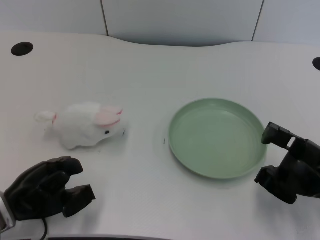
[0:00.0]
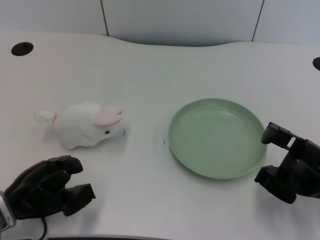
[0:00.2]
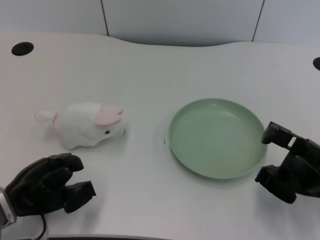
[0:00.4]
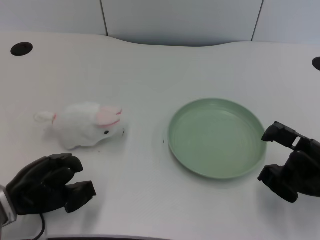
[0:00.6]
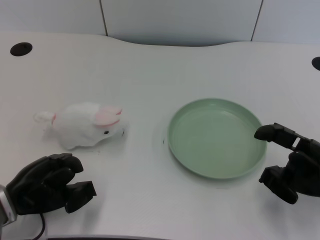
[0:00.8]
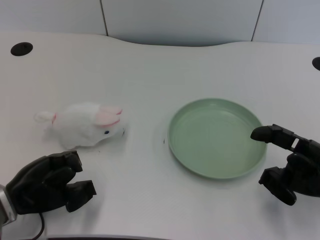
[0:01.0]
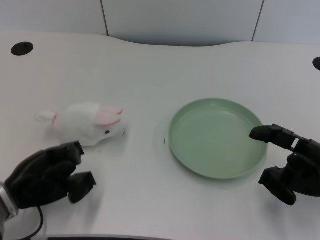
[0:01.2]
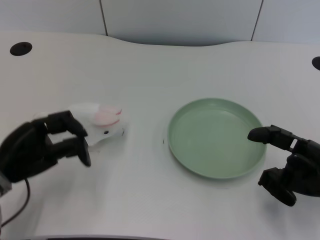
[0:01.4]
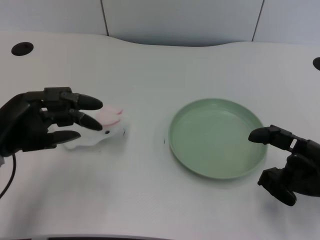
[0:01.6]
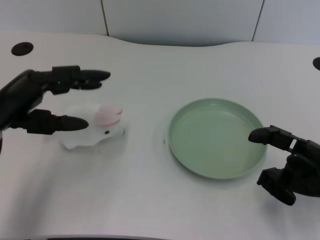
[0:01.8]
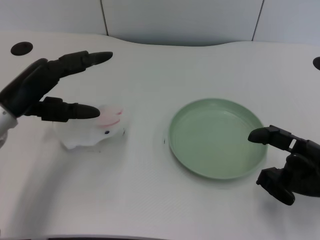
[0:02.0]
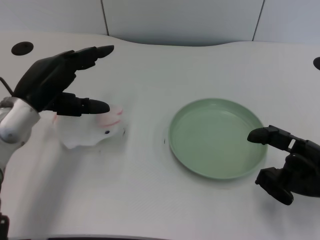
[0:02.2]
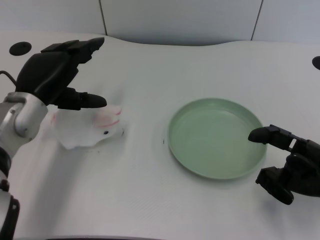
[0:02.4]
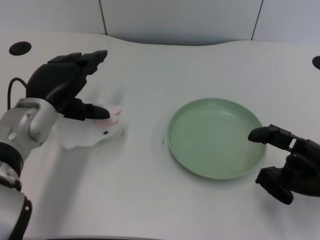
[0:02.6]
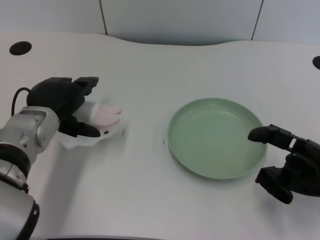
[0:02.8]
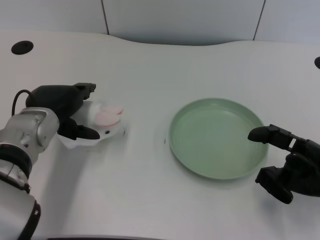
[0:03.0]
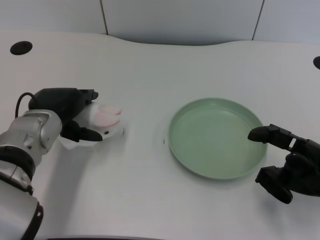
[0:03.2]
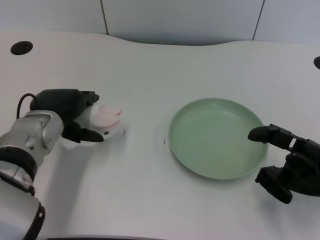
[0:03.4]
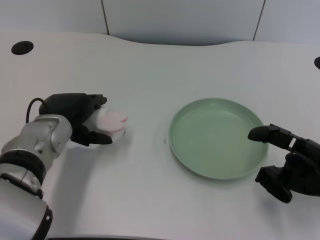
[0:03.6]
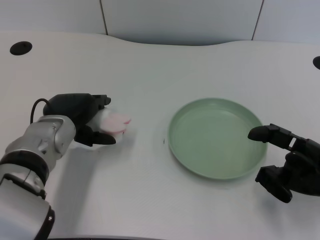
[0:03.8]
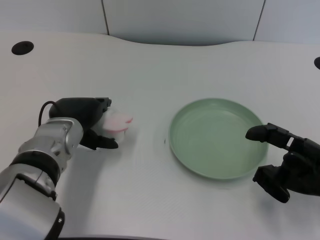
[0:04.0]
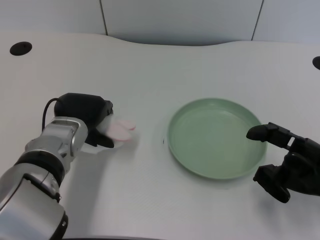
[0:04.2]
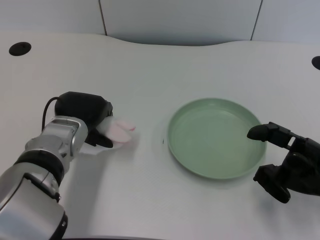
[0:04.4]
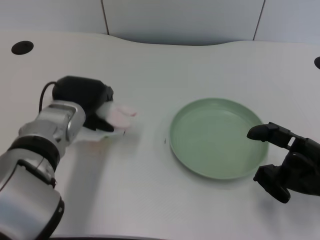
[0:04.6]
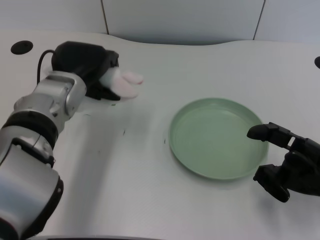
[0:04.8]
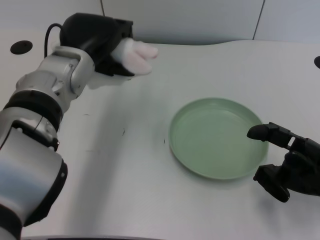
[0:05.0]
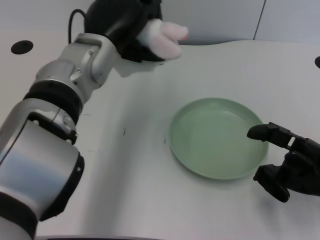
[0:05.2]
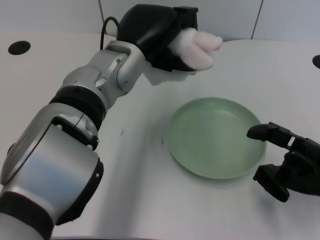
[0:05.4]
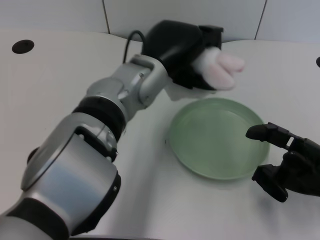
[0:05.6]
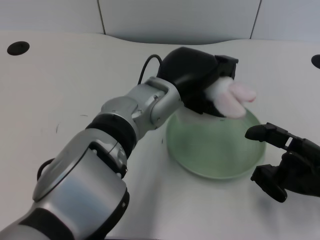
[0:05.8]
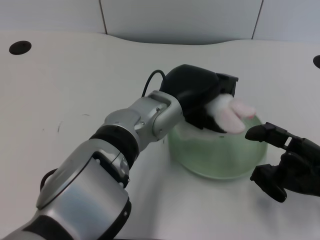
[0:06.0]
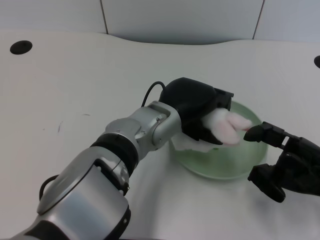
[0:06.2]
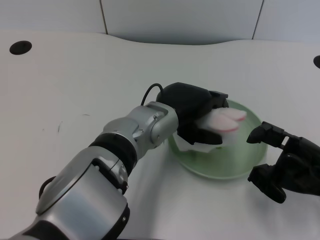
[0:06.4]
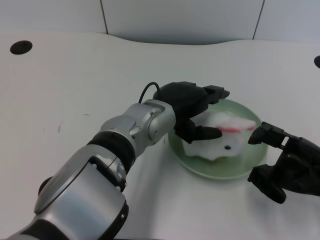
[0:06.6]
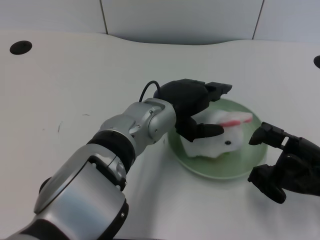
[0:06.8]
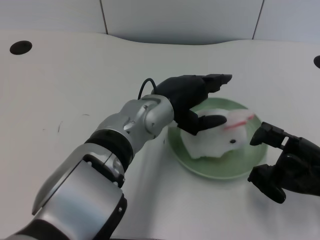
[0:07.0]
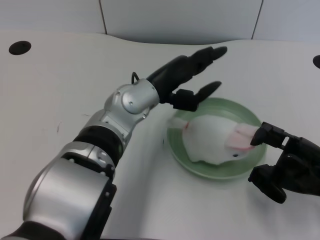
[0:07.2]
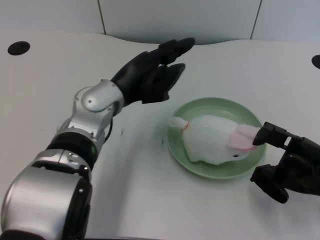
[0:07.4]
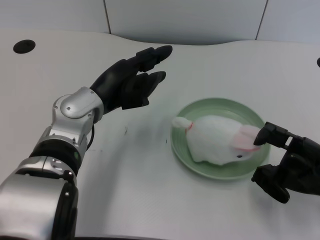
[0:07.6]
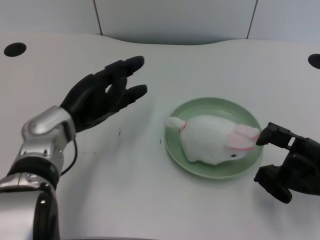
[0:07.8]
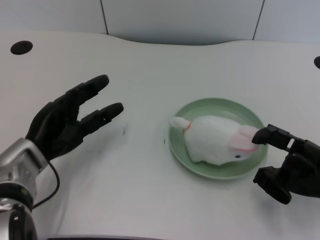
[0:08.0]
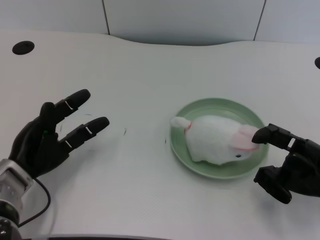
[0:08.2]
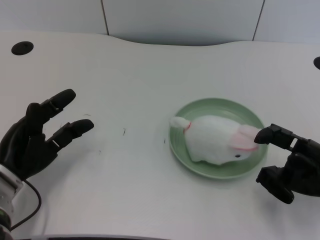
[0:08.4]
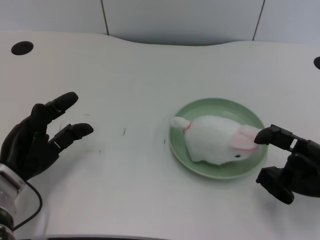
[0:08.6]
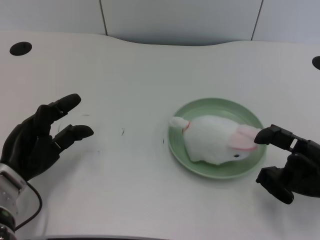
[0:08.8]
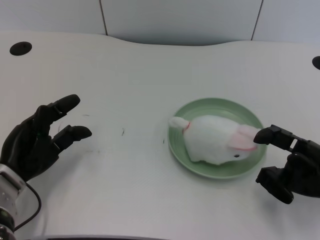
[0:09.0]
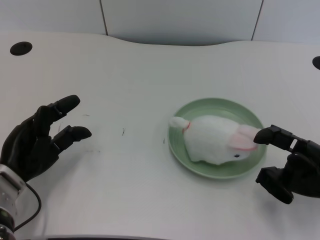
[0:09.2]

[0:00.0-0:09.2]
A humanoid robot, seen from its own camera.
Task of the whole recording: pick up the rabbit doll from the table and place it on the plate.
Step, 1.2 to 4.4 s: Grasp the rabbit doll with the left gripper.
Step, 4.8 to 6.6 s: Place the rabbit doll into the plate with the left gripper.
1.6 to 3.0 s: The left hand heads to the right and forward, covering some 10 cm.
3.0 to 4.6 s: The hands make only small movements.
4.6 to 6.2 s: The left hand moves to the right, approximately 15 cm.
6.2 to 7.6 s: The left hand heads to the left, covering some 10 cm.
7.6 to 9.2 s: The left hand goes approximately 15 cm to the left, downward and backward.

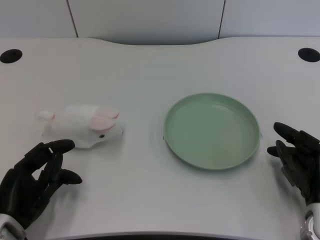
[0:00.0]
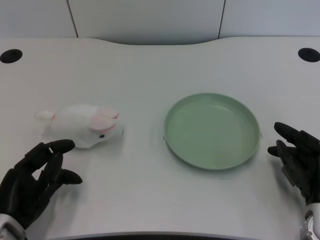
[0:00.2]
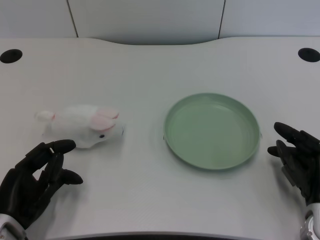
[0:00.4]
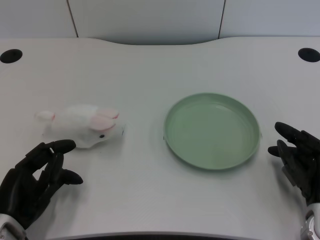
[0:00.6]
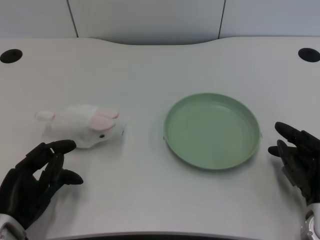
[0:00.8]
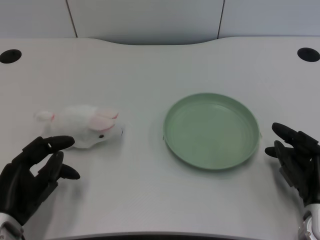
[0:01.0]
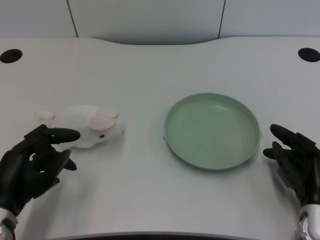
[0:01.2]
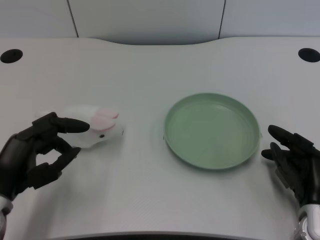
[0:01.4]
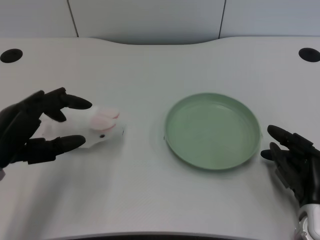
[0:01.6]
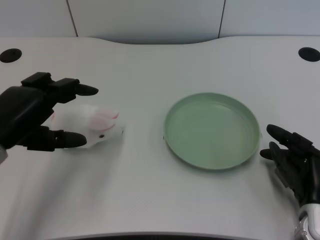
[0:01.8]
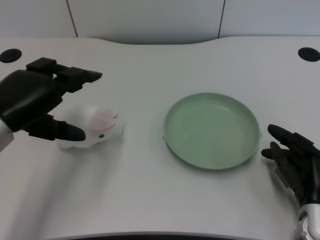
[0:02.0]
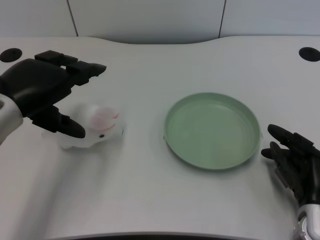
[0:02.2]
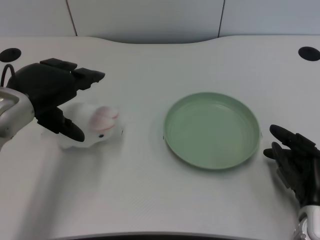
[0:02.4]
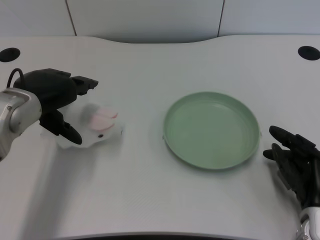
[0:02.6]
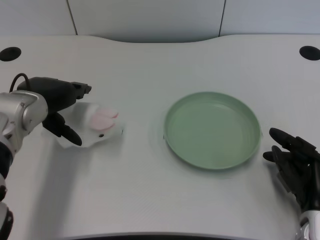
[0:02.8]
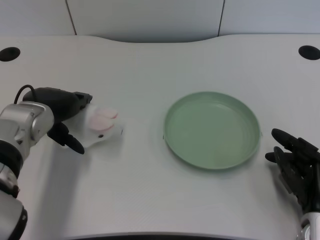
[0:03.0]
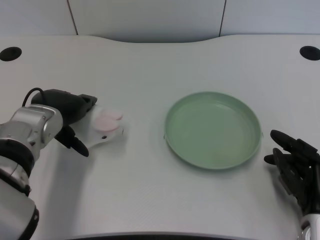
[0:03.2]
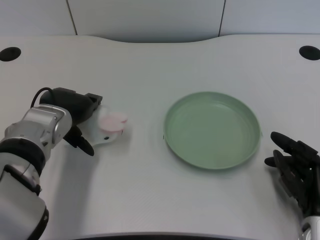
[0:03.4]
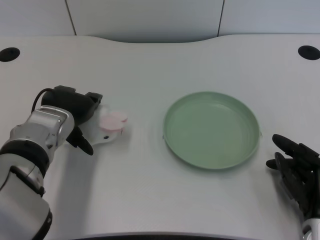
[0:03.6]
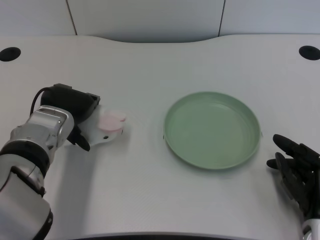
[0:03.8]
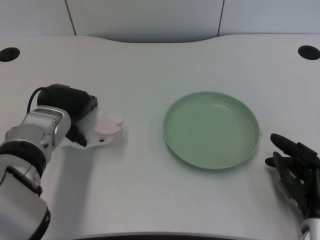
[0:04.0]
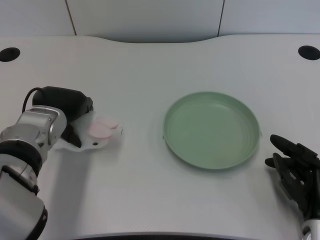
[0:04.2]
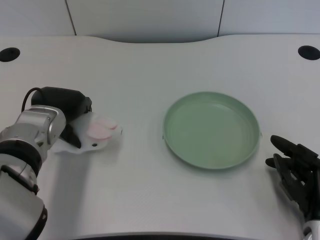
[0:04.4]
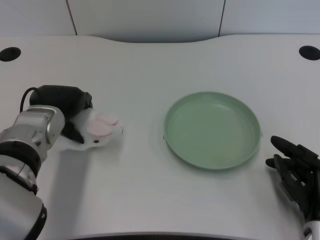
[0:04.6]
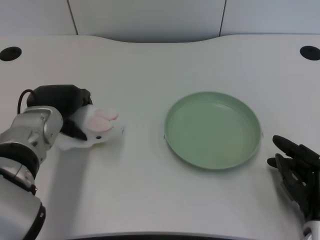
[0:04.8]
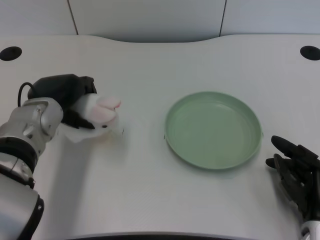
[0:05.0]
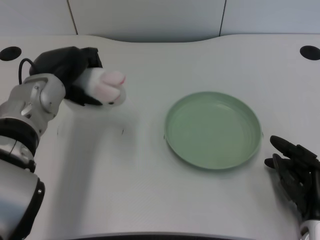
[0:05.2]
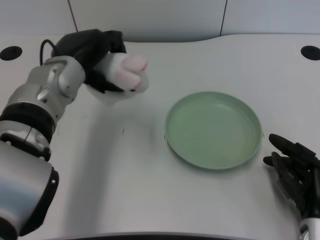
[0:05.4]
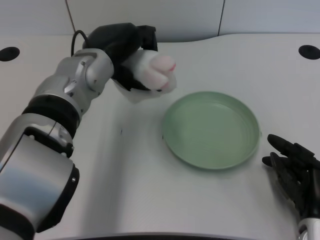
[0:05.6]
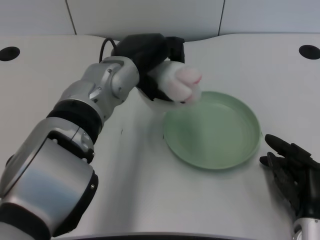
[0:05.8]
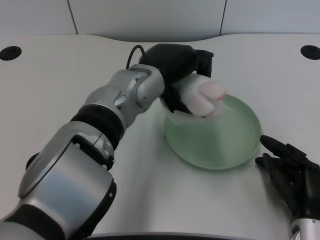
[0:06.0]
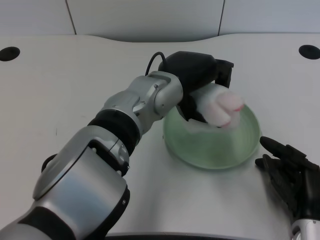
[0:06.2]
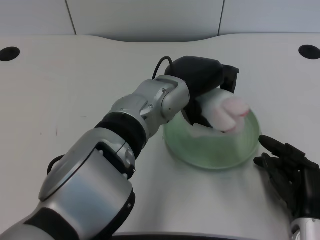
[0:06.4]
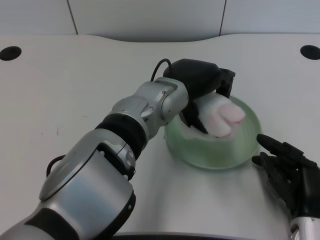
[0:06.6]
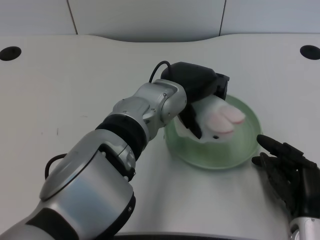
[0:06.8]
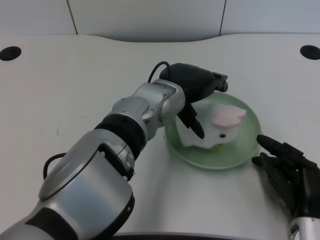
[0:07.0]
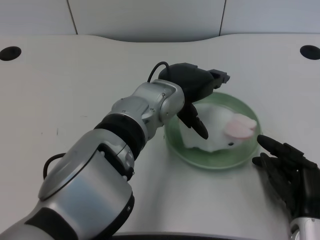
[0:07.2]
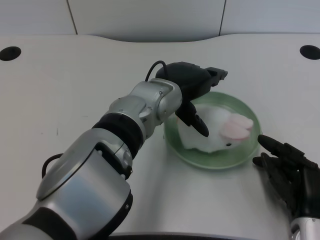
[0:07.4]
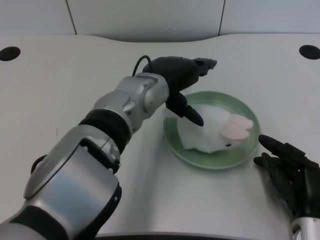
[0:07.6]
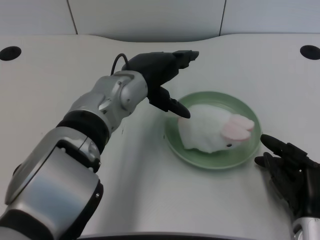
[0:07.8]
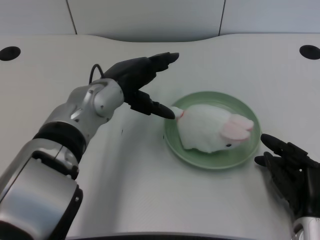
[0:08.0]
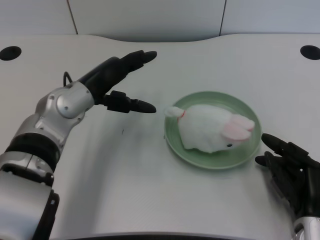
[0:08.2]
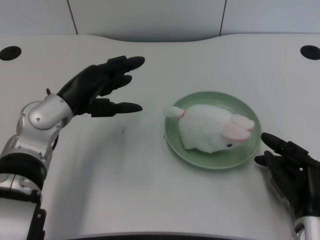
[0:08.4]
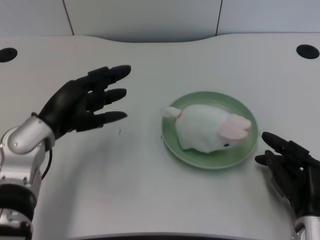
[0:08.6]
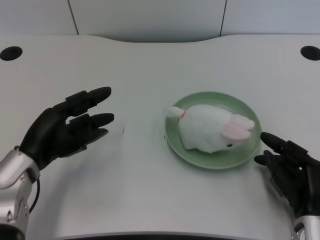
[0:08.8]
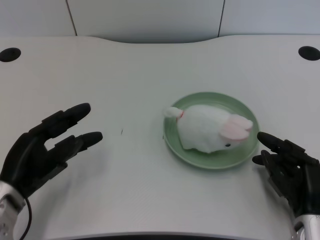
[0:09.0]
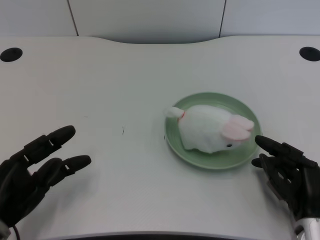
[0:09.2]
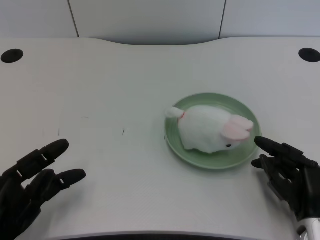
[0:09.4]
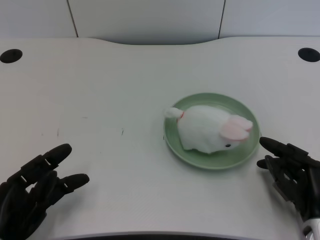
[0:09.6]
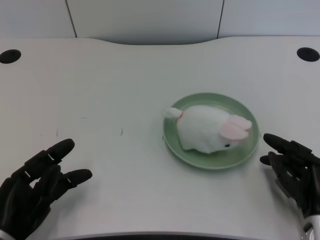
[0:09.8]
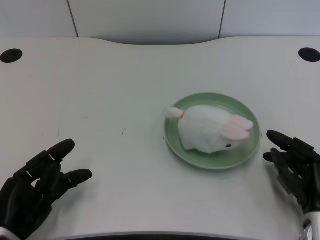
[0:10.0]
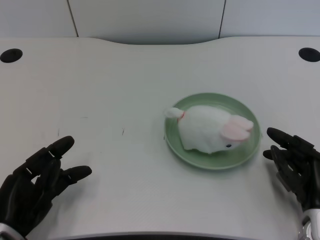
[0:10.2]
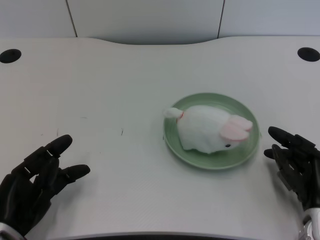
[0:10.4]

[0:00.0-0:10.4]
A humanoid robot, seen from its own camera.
Task of the whole recording: pick up the rabbit doll from the table and place it on the plate.
Step, 1.2 to 5.0 s: Grasp the rabbit doll with the left gripper.
Step, 5.2 to 7.0 s: Place the rabbit doll into the plate with the left gripper.
1.4 to 3.0 s: The left hand travels forward and to the right by about 15 cm.
3.0 to 4.4 s: The hands stay close to where they were, moving slightly.
4.4 to 6.0 s: The left hand shifts some 15 cm to the right and upward.
7.4 to 9.0 s: The left hand is displaced to the left and downward by some 25 cm.
9.0 to 10.4 s: The left hand shifts by roughly 5 cm.

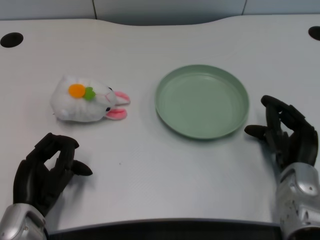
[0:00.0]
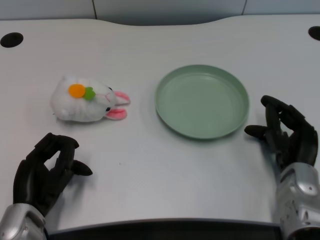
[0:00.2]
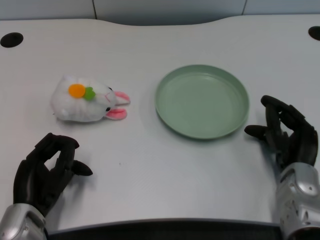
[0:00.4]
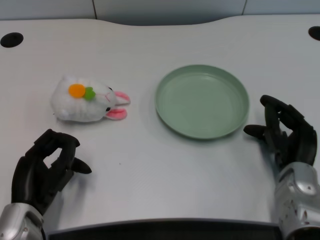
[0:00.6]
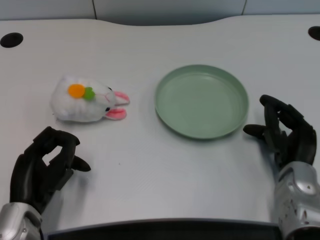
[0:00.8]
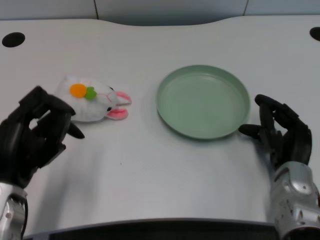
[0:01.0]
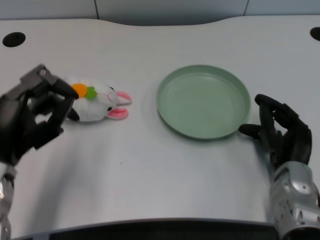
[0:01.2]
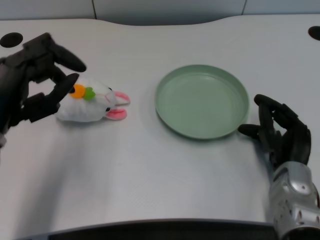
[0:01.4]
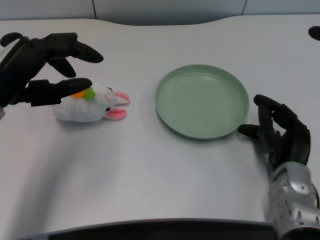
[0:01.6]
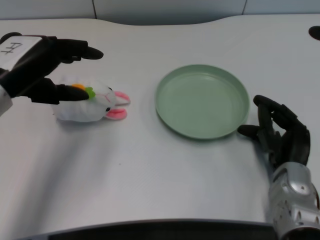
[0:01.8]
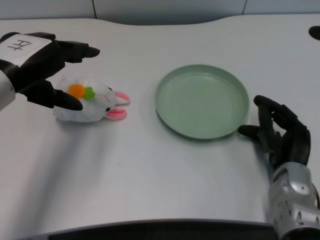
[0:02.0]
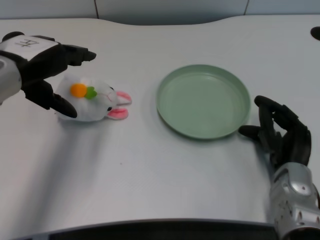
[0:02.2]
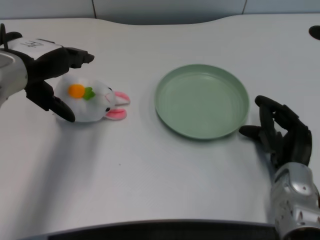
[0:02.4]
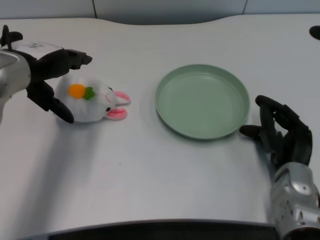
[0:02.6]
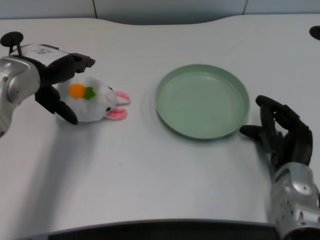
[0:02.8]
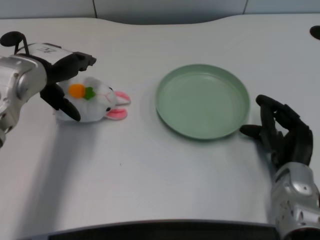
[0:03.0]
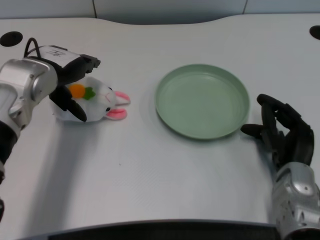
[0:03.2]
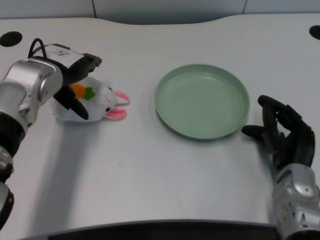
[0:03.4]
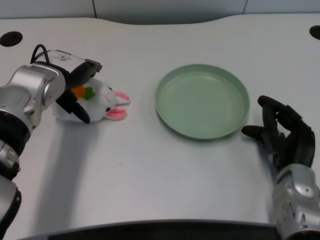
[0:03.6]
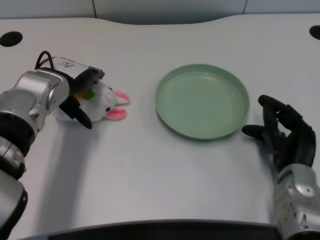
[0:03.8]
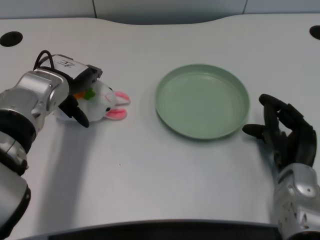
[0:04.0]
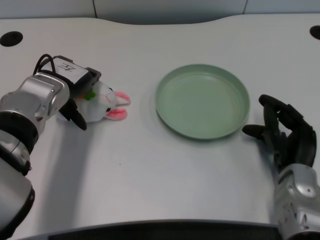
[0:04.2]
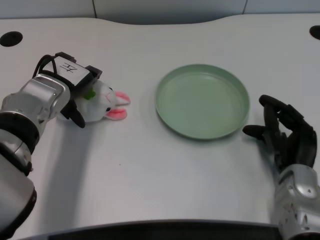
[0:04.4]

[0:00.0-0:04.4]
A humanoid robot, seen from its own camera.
Task of the whole recording: pick up the rabbit doll from the table and place it on the plate.
1.4 to 3.0 s: The left hand shifts approximately 10 cm forward.
3.0 to 4.4 s: The left hand moves downward, roughly 5 cm.
